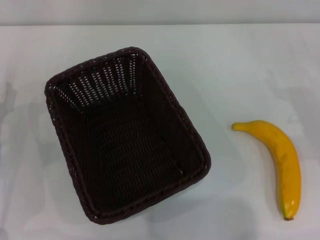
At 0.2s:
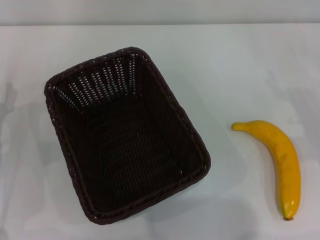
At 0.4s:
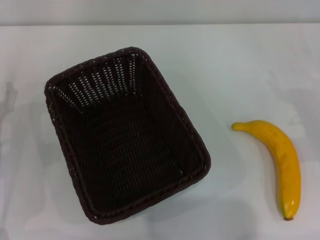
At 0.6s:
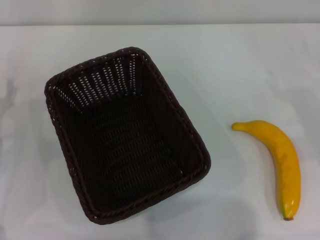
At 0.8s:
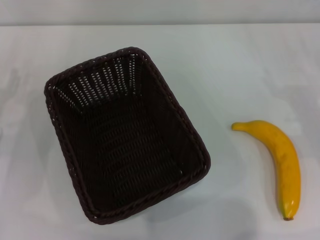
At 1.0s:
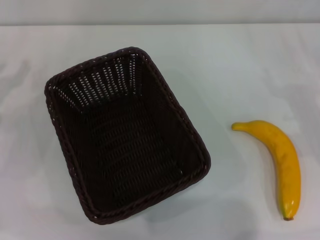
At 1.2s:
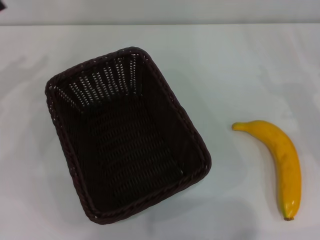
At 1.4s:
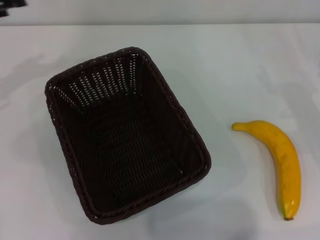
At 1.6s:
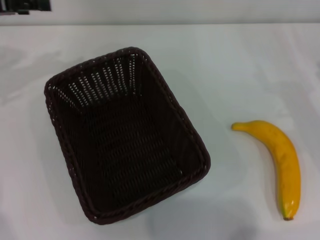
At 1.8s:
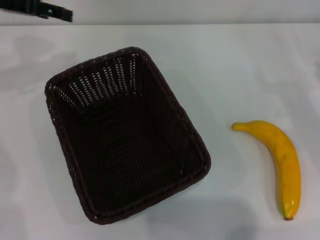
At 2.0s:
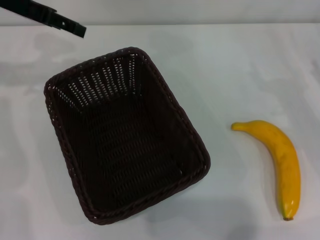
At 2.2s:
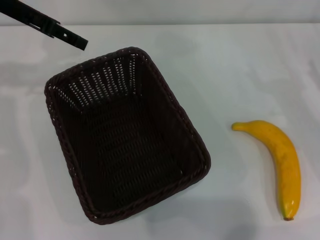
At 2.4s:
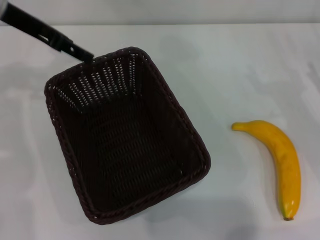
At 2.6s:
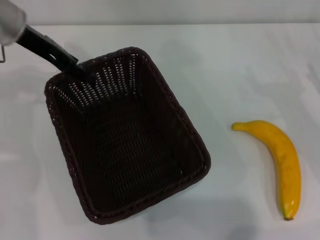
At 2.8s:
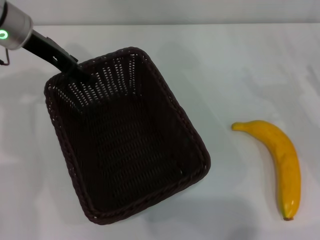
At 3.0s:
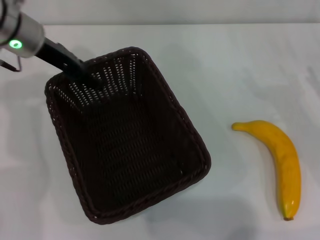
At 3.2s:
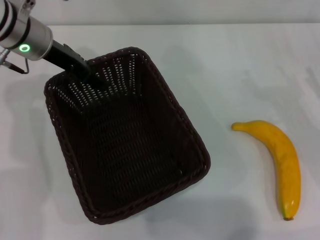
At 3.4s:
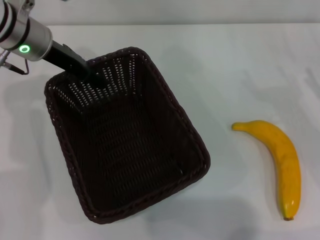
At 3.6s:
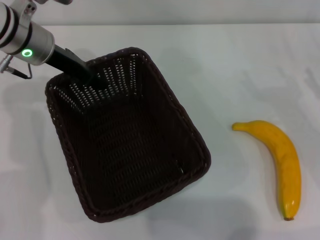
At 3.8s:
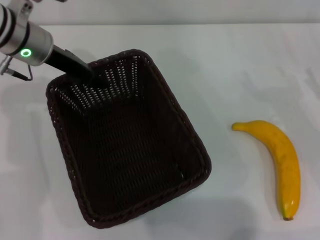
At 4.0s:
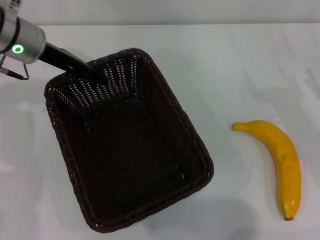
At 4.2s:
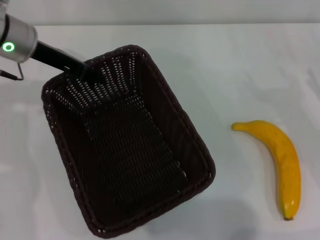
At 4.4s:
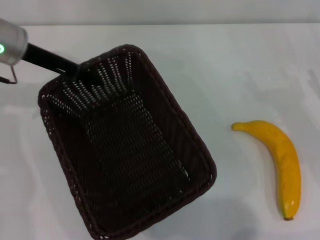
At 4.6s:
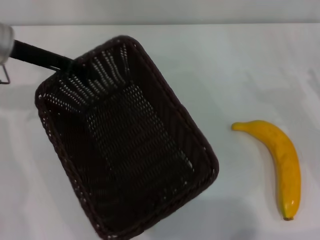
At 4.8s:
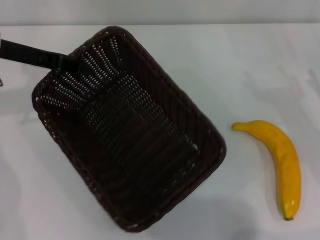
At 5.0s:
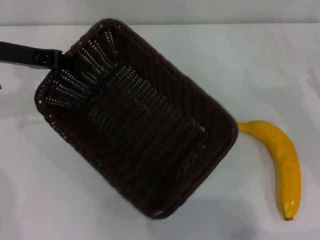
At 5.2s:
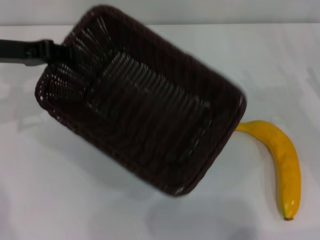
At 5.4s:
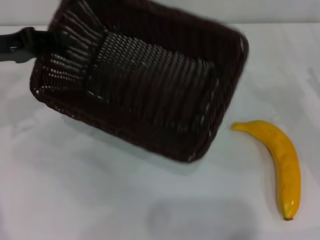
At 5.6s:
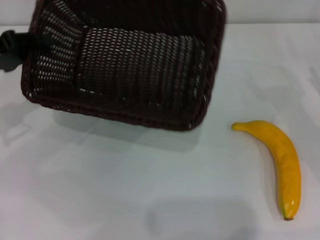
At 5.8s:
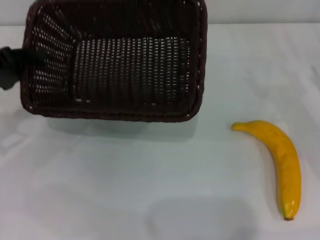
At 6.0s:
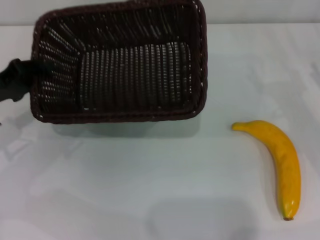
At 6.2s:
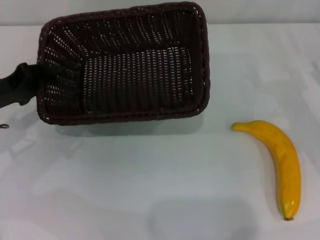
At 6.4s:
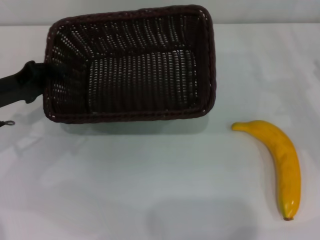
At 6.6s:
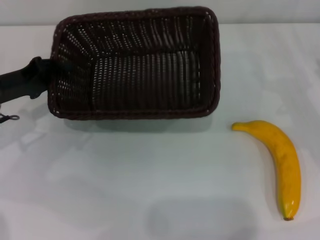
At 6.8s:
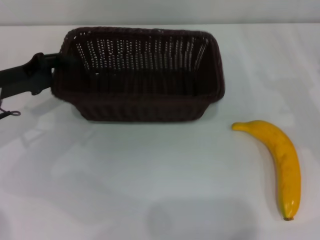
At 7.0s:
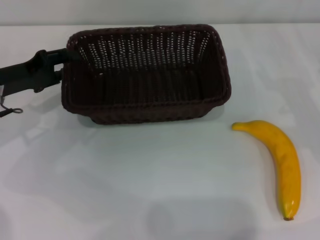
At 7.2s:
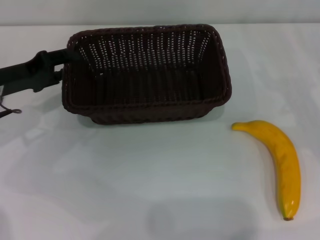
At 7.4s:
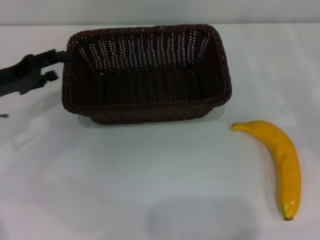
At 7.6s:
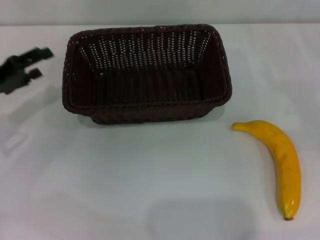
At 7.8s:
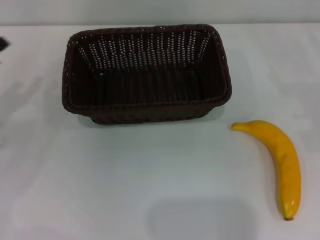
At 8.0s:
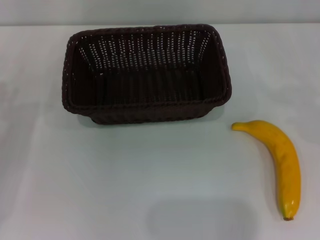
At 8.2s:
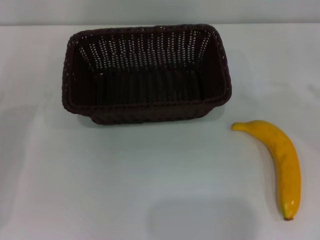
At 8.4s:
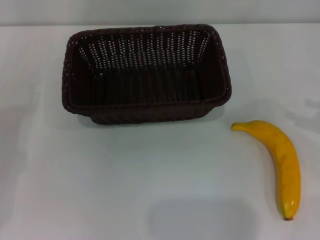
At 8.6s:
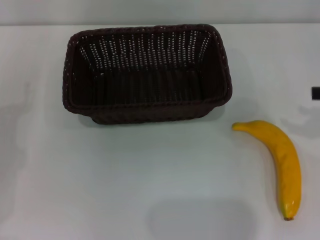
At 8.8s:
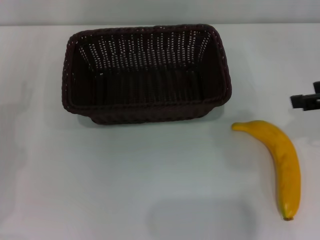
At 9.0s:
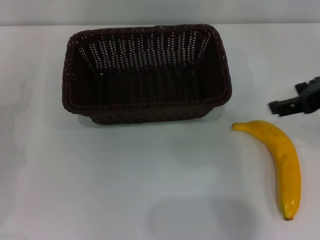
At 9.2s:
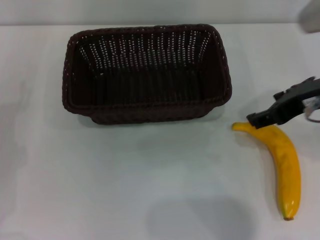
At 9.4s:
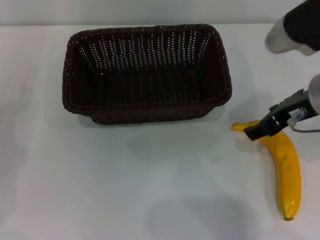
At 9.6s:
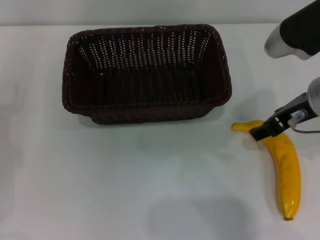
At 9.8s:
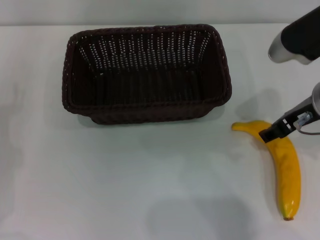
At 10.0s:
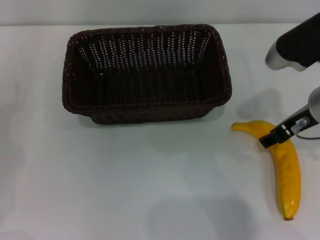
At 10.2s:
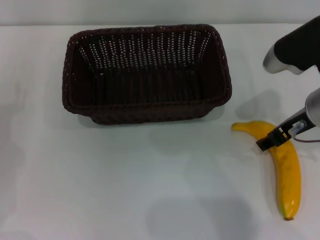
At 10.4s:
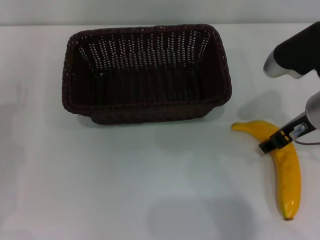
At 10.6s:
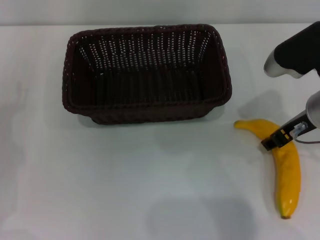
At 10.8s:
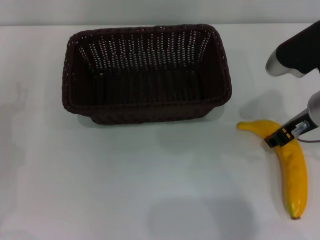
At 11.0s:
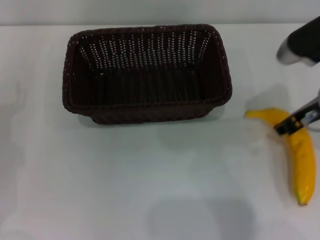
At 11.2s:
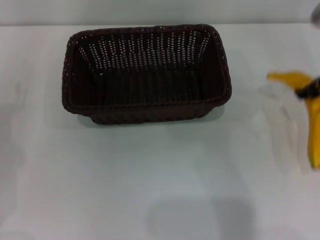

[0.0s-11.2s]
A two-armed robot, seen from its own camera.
Step, 0.0s to 5.2s: Pick up the dark basket with the left gripper.
Step, 5.4s to 7.6s: Place the dark basket in the center of view with the left gripper.
Step, 7.8s to 11.0s: Pick up the banana with the right gripper.
0.0s to 1.6s: The left gripper goes some 25 cm upward and forward.
1.6s to 3.2s: The left gripper moves to the right, some 15 cm.
3.2s to 4.8s: The left gripper moves to the left, some 5 cm, and closes up.
4.8s to 6.4s: The left gripper shifts some 10 cm downward and backward.
6.4s to 8.0s: The right gripper heads to the right, covering about 5 cm. The left gripper shifts about 10 cm backward and to the left, and opens up.
8.0s to 9.6s: The right gripper goes roughly 25 cm to the left.
9.6s to 11.2s: The right gripper moves to the right, some 5 cm, and closes.

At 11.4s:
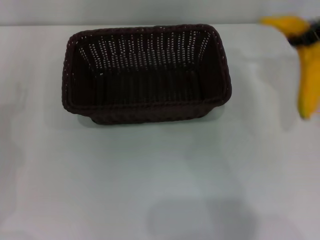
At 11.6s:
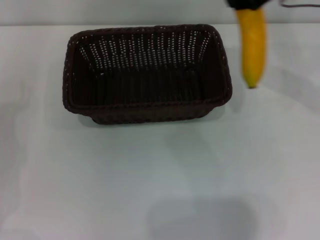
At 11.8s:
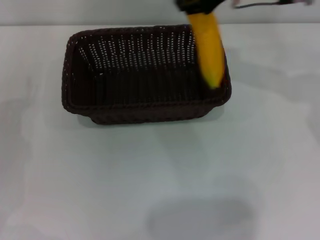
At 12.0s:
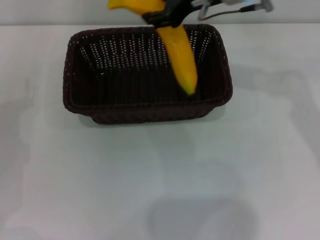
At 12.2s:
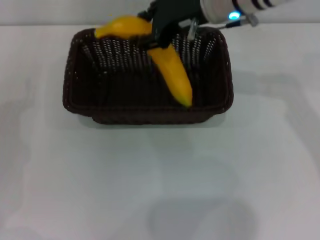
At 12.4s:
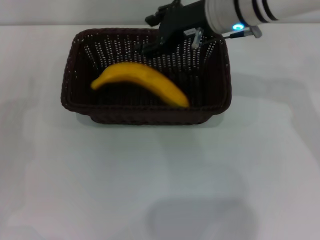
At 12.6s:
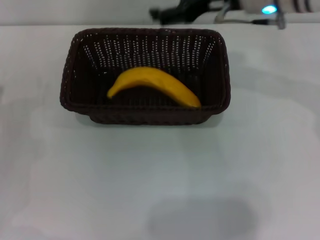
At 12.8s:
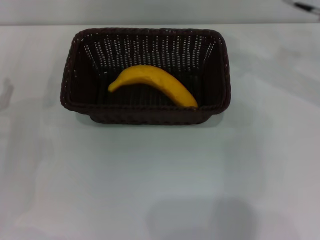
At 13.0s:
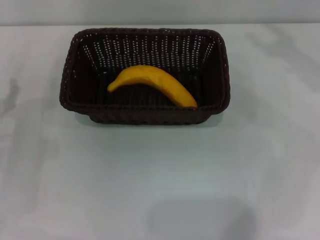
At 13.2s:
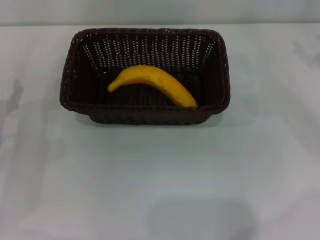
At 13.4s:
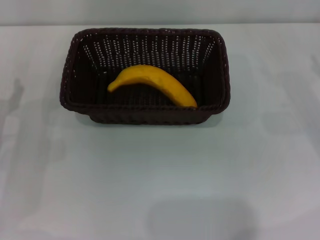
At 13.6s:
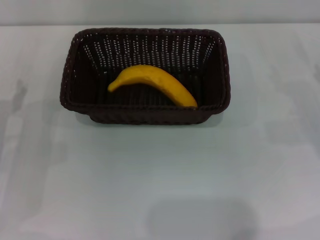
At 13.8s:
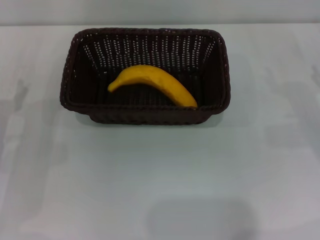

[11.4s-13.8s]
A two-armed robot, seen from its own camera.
Step, 11.4s to 12.4s: Place the banana into the dark basket with the right gripper.
11.4s to 12.6s: The right gripper goes about 10 cm to the left, and opens up.
12.6s to 13.8s: The right gripper shifts about 30 cm to the right, downward and backward.

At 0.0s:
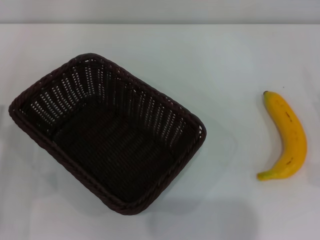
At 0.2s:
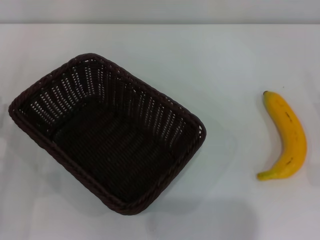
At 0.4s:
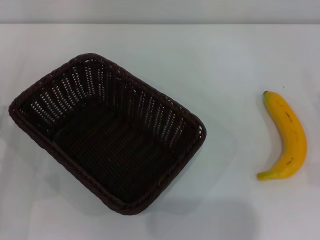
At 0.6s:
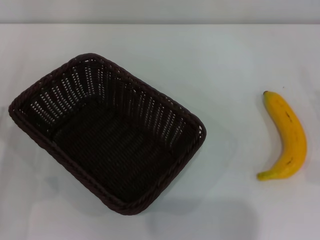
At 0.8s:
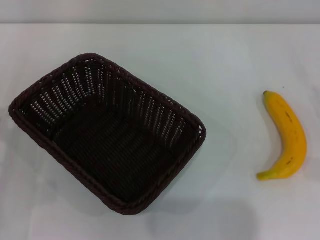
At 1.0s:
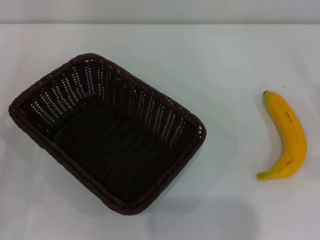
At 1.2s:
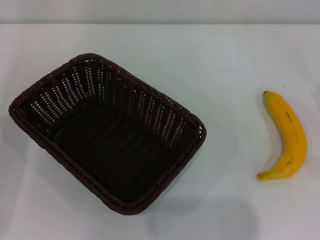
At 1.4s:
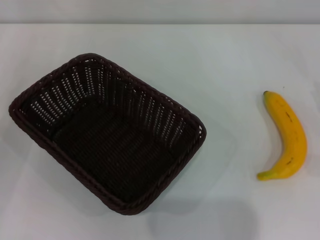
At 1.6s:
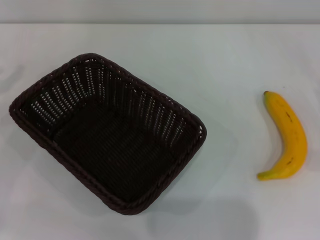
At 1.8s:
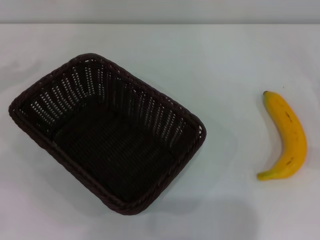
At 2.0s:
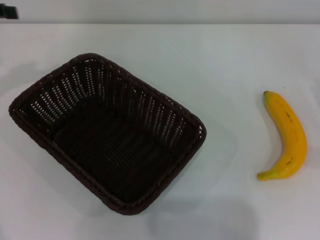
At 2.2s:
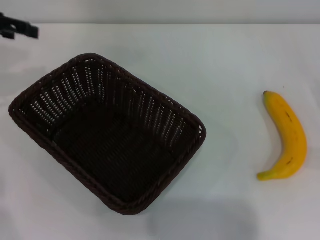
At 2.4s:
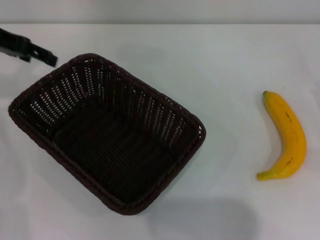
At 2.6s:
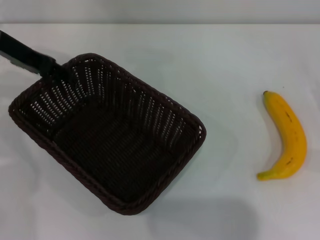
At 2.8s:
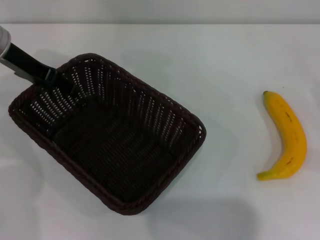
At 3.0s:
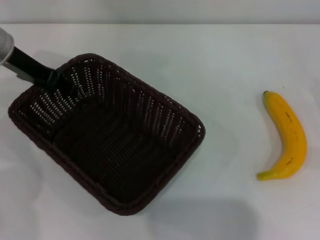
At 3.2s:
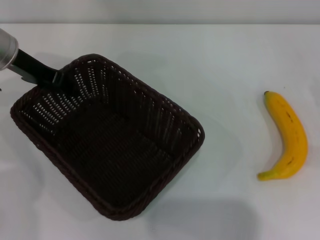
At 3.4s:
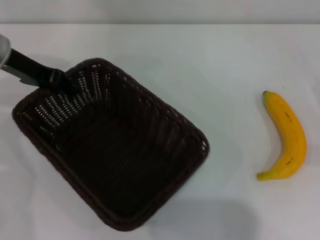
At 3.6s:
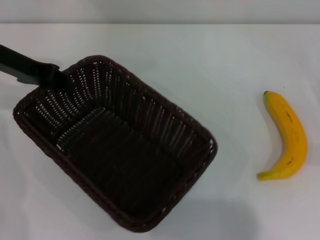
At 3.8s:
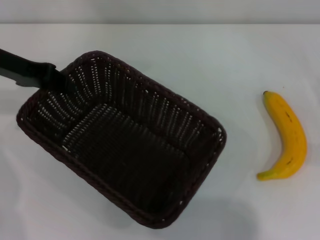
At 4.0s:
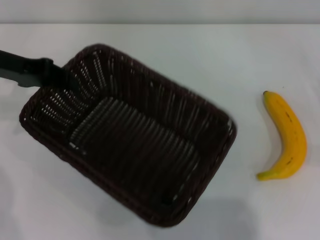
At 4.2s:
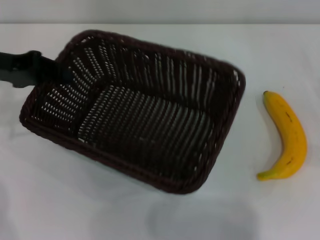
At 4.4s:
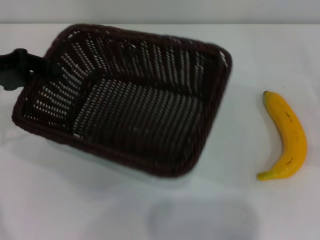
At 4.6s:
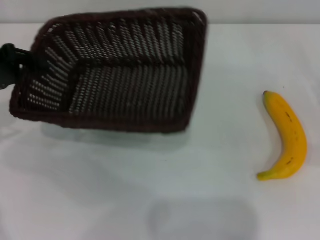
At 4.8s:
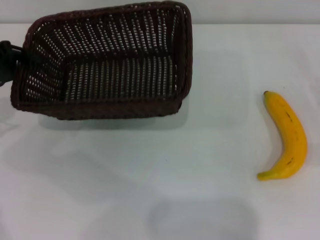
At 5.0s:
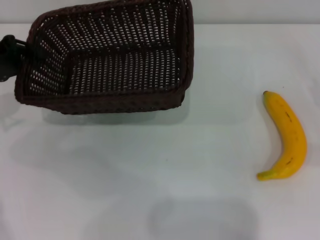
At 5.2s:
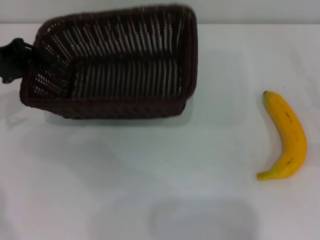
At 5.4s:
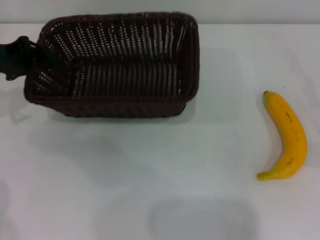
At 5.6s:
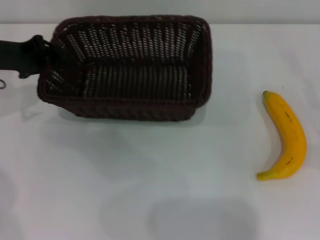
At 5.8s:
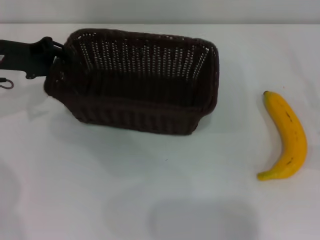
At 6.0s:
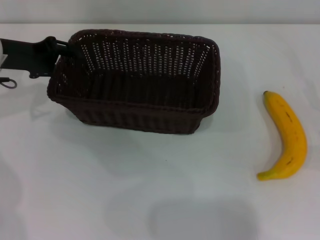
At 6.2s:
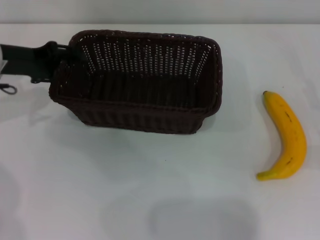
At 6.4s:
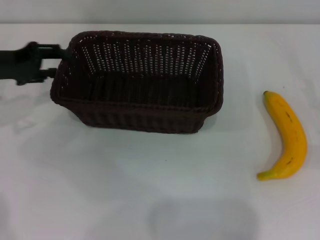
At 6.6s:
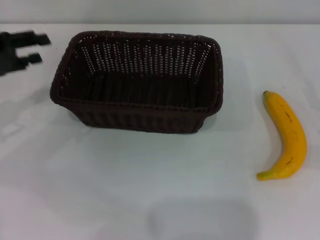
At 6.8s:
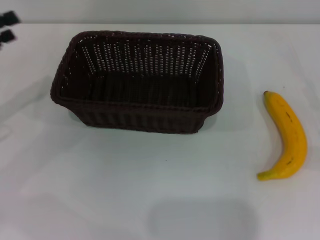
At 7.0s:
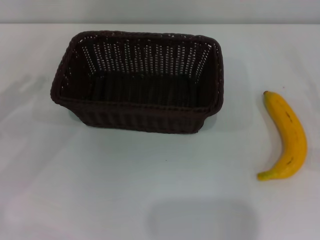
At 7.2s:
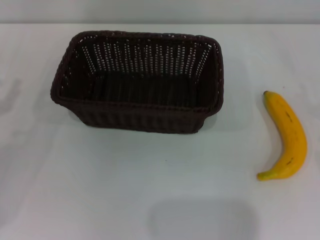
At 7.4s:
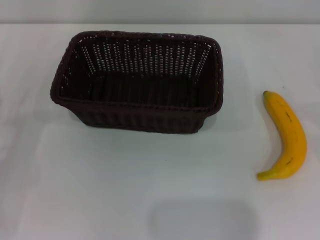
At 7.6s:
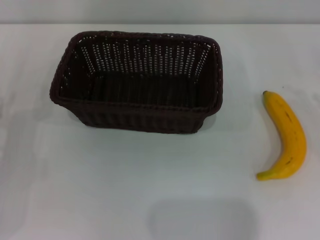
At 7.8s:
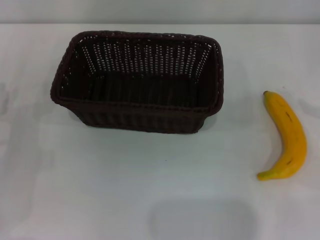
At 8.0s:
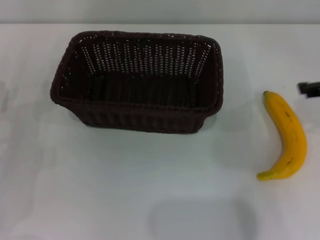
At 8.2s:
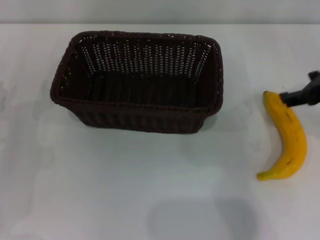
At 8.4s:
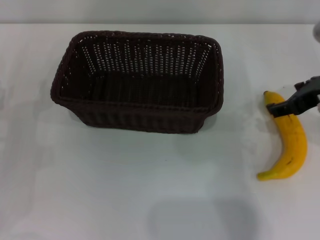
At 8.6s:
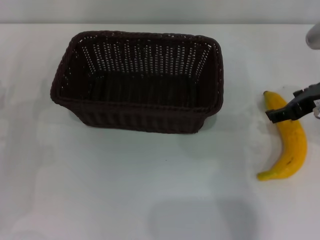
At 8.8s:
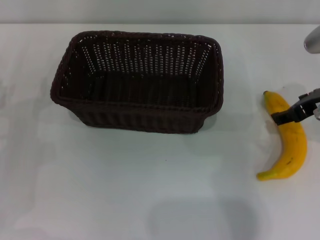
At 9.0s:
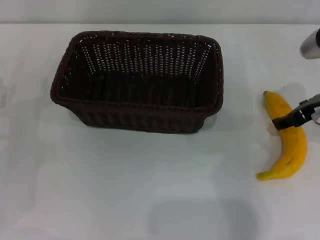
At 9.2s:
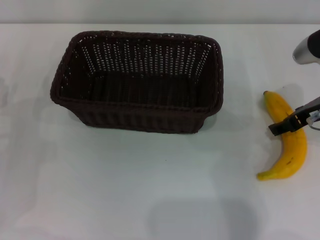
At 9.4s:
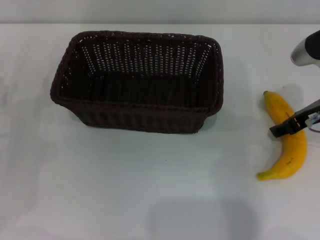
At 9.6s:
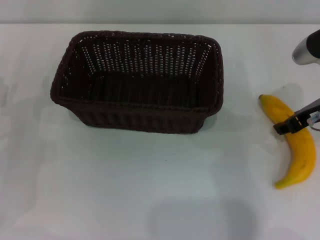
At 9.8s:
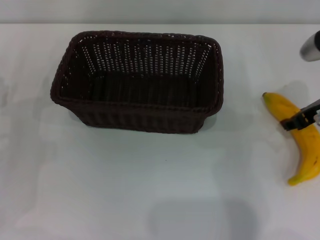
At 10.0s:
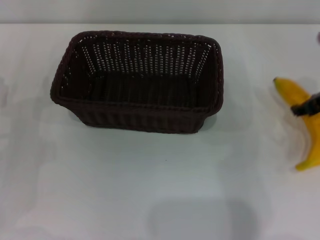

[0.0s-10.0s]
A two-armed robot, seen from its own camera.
Step, 0.0s to 3.8s: Pick up the dark basket with the left gripper.
Step, 4.0s to 6.4s: Place the dark basket in the center of view with the left gripper.
1.4s to 2.8s: The left gripper moves to the right, forward and upward, about 20 cm.
2.8s to 4.2s: The left gripper goes about 5 cm to the left, and closes up.
4.2s to 5.8s: The left gripper moves approximately 5 cm.
5.8s to 7.2s: The left gripper shifts some 15 cm backward, to the left and downward, and opens its fingers.
7.2s to 8.6s: The right gripper heads to the left and upward, covering some 20 cm.
8.6s to 10.0s: The right gripper closes its fingers.
